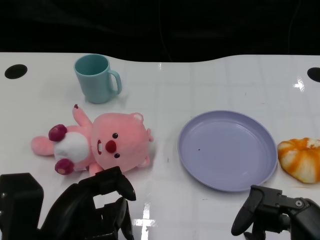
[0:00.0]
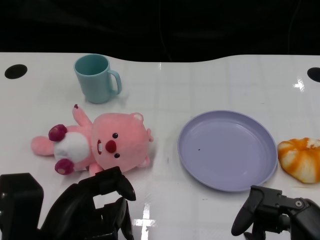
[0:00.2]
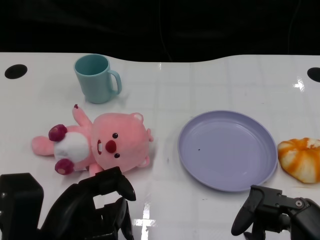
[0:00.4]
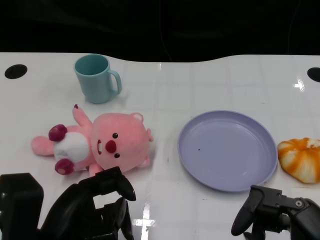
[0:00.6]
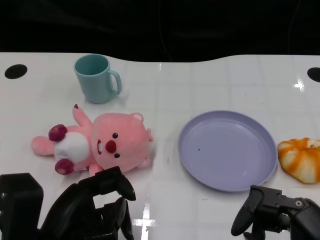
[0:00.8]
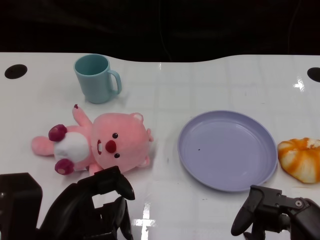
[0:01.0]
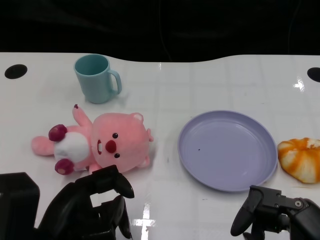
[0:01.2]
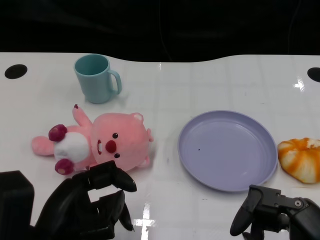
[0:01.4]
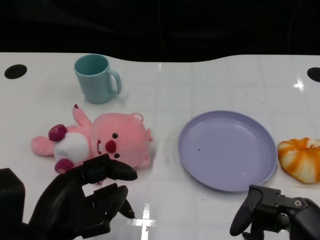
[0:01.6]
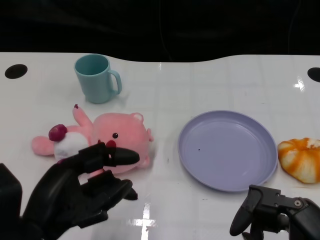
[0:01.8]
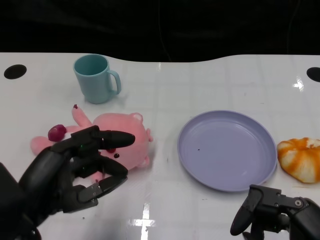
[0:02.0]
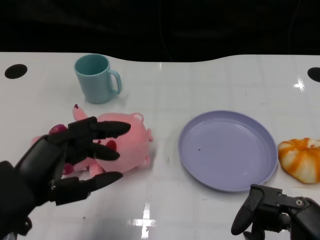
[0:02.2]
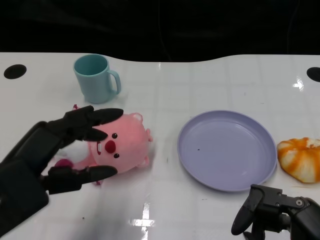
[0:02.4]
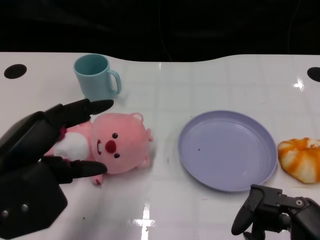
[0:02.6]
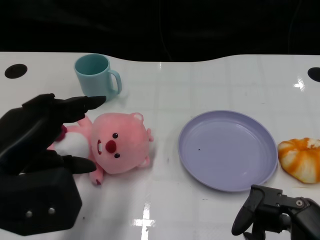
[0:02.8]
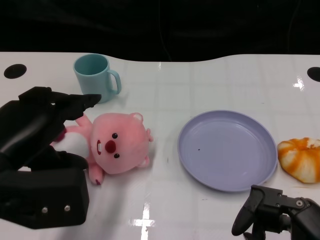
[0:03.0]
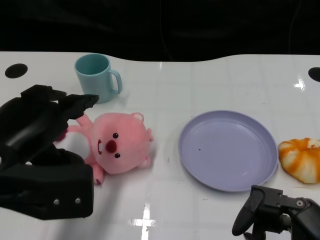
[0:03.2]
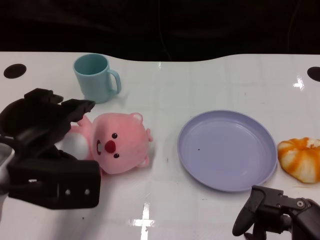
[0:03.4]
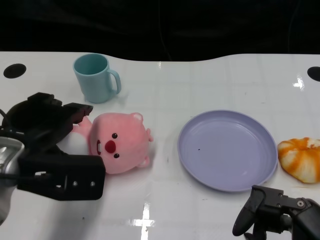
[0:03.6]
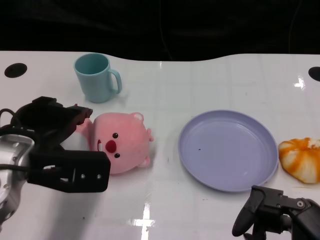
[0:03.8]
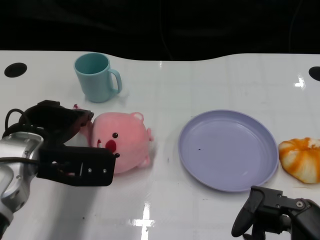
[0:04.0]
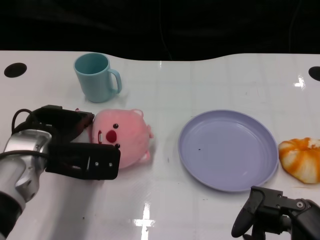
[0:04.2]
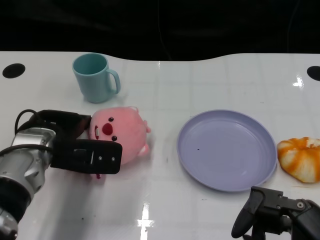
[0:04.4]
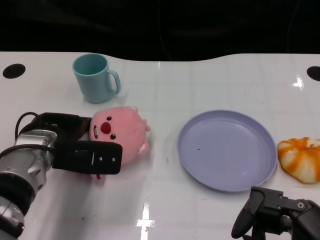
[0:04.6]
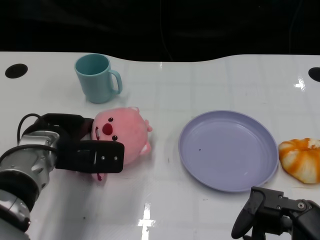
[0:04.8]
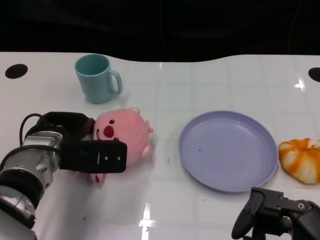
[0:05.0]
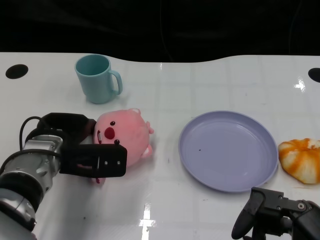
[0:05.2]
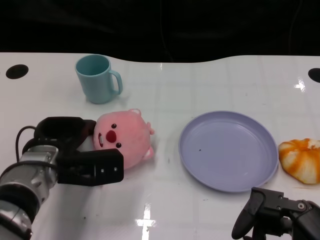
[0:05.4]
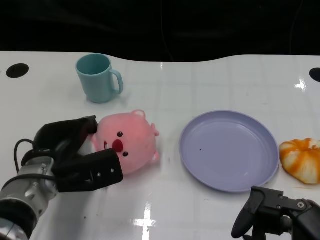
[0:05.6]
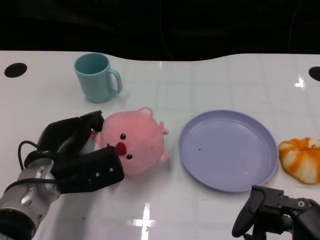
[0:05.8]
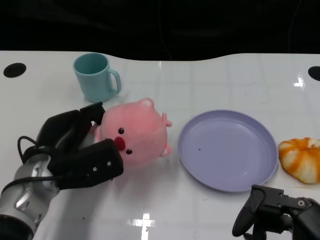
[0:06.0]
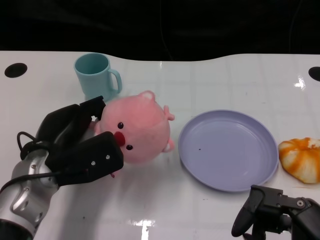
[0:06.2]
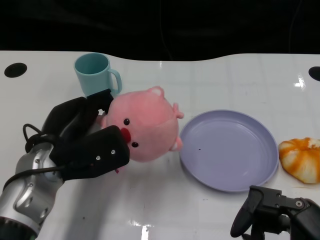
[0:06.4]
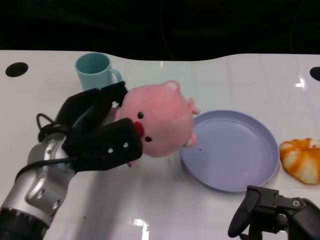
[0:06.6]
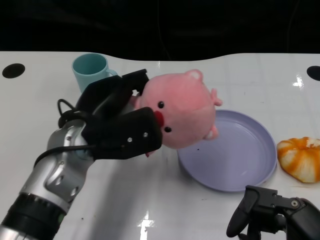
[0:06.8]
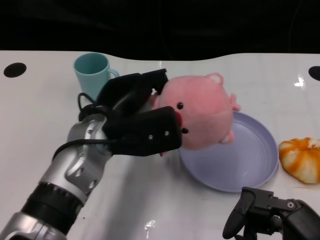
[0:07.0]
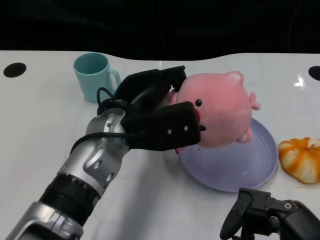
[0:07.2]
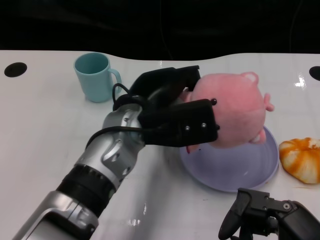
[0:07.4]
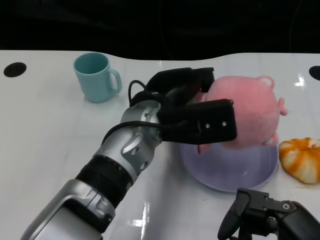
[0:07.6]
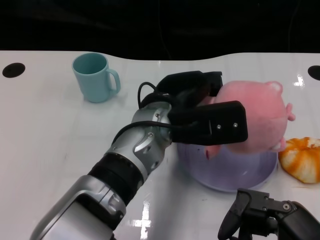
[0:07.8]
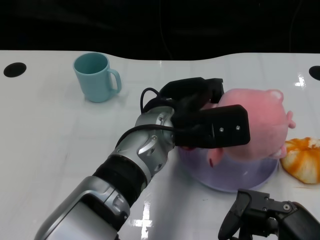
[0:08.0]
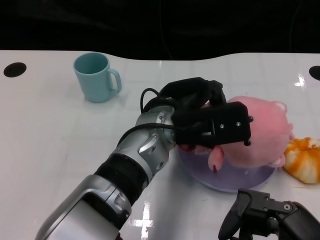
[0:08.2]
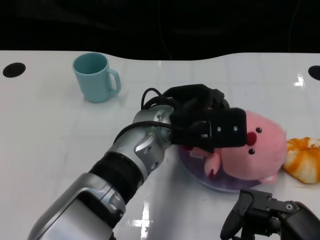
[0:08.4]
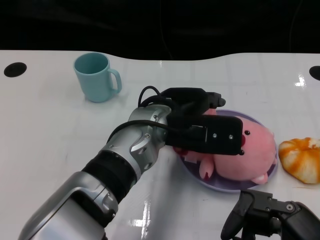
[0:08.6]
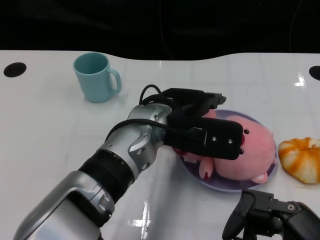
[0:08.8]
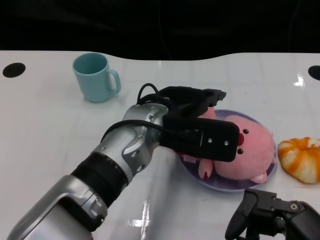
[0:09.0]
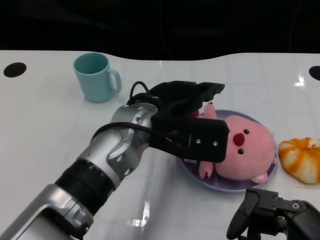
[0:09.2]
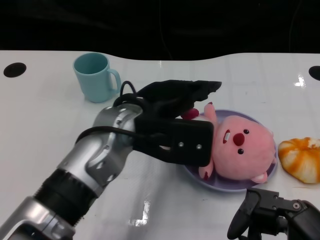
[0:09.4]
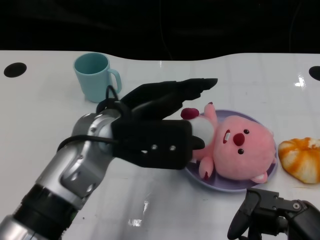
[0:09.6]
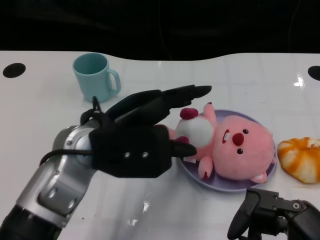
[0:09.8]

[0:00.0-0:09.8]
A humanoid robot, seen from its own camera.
Task of the whole recording: Pick up the doll on one side of the plate and place it into the plate.
Step, 0:01.2 to 0:05.6: Grasp the pink doll with the left gripper.
Step, 0:05.8 to 0:08.8: Place the pink doll into the plate with the left gripper.
0:01.4 to 0:02.8: The left hand travels upward by about 10 cm.
0:02.8 to 0:04.2: The left hand moves forward and downward, approximately 15 cm.
0:04.2 to 0:05.6: The left hand moves downward, approximately 5 cm.
0:05.6 to 0:07.0: The left hand is displaced upward and to the right by some 10 cm.
0:07.0 to 0:08.4: The left hand heads to the right, covering approximately 10 cm.
0:08.4 to 0:09.8: The left hand is displaced to the left by roughly 10 cm.

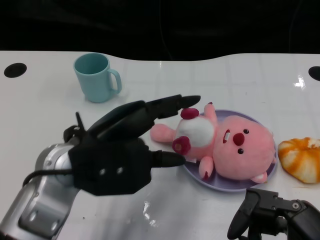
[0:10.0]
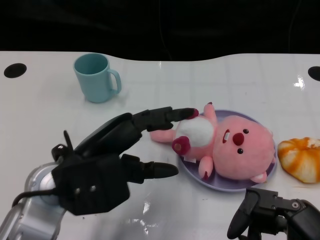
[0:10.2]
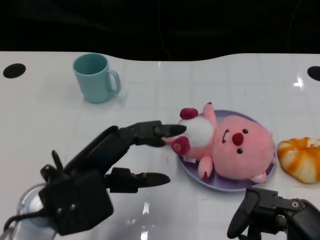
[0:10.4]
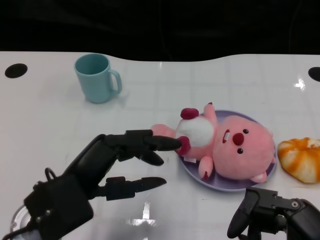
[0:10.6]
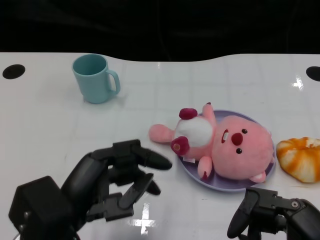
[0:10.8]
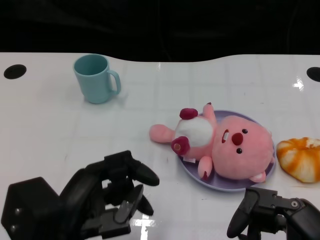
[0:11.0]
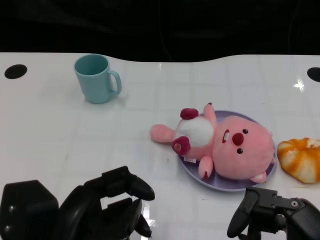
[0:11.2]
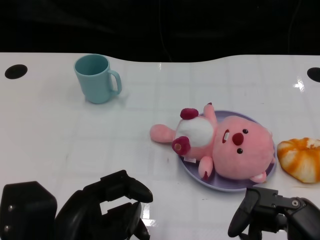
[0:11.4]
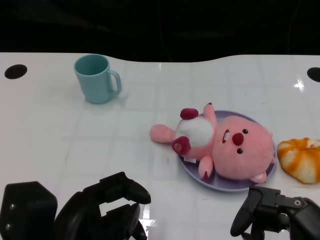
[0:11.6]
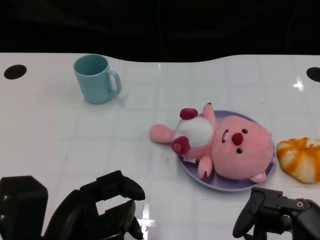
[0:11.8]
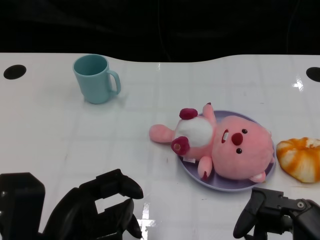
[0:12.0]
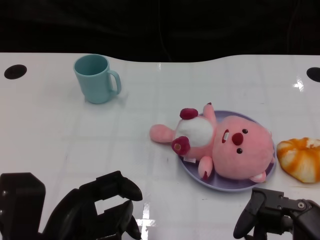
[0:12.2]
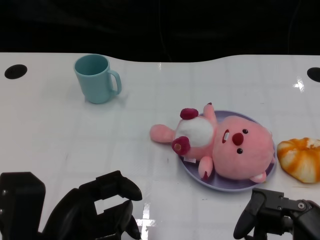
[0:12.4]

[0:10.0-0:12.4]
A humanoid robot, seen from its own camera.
Task of the whole recording: Pick up the doll on one side of the plate and place it into the plate.
0:10.0 to 0:11.2: The left hand travels backward by some 10 cm.
0:11.2 to 0:12.4: There are only small adjustments of the hands.

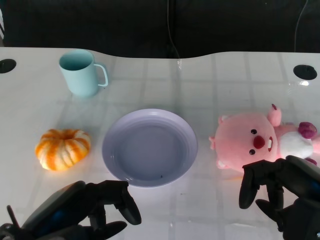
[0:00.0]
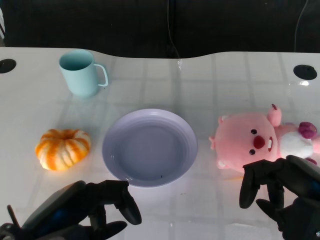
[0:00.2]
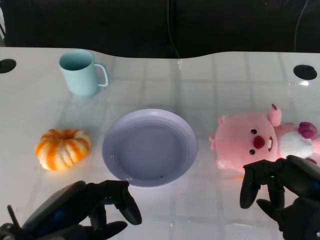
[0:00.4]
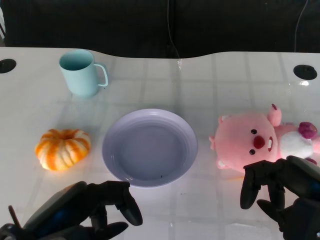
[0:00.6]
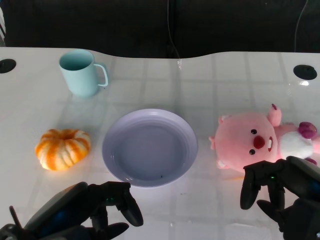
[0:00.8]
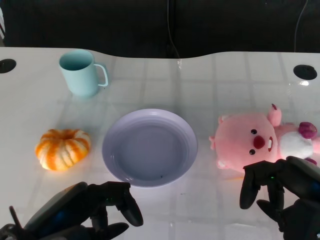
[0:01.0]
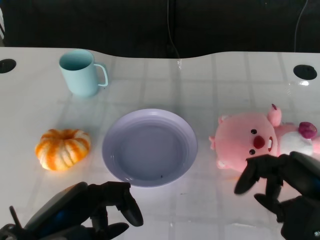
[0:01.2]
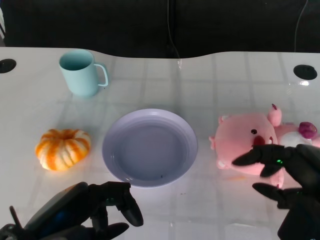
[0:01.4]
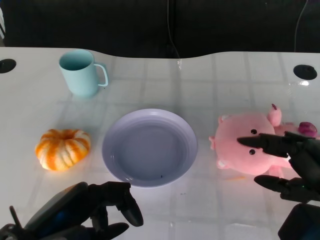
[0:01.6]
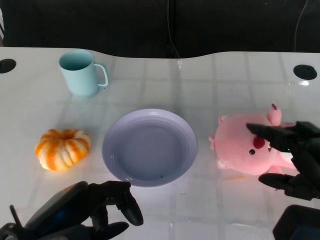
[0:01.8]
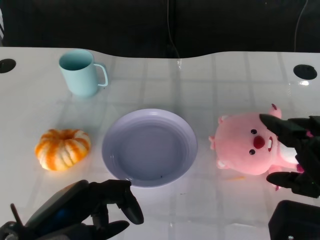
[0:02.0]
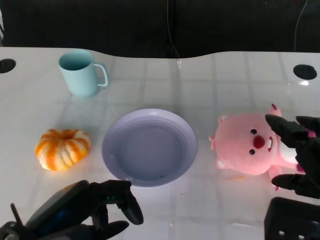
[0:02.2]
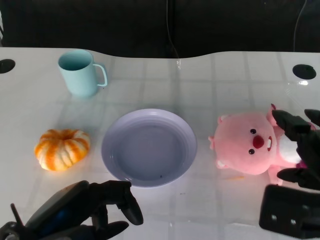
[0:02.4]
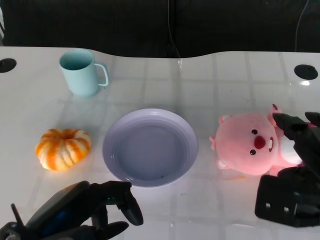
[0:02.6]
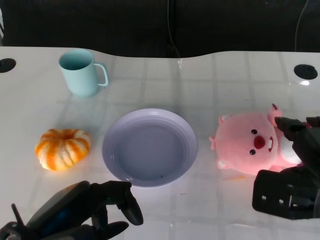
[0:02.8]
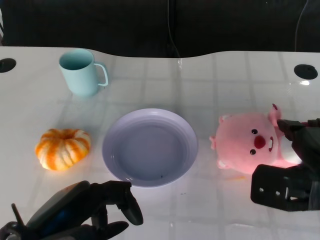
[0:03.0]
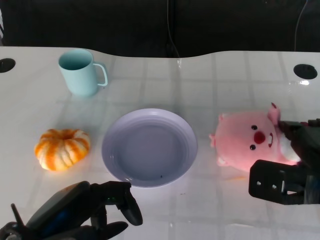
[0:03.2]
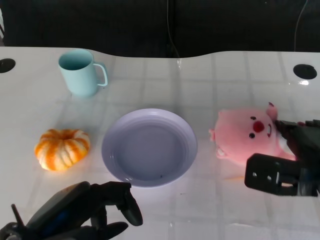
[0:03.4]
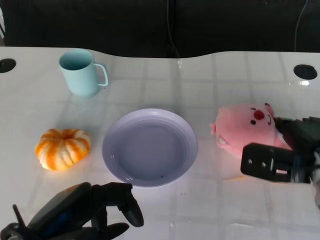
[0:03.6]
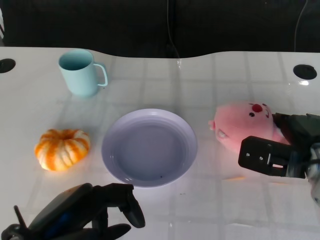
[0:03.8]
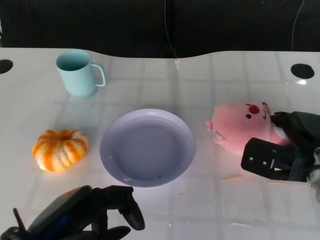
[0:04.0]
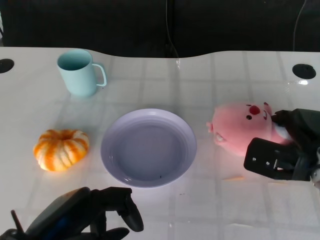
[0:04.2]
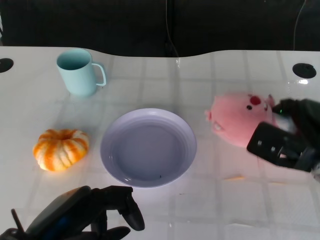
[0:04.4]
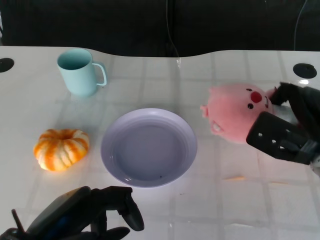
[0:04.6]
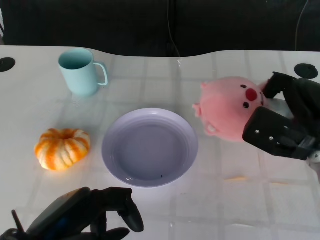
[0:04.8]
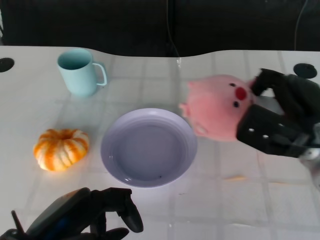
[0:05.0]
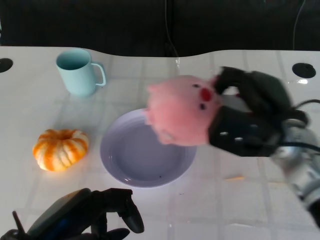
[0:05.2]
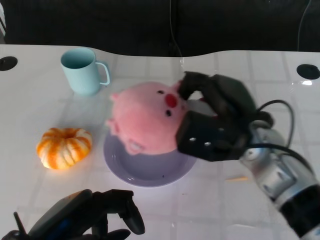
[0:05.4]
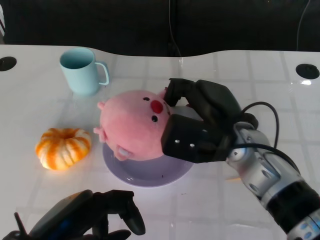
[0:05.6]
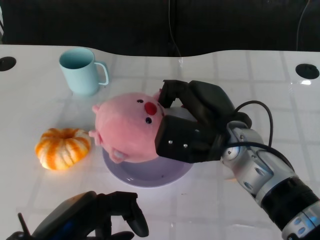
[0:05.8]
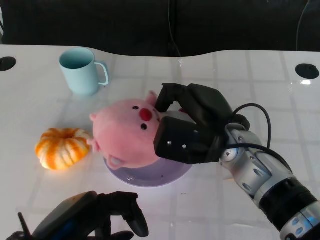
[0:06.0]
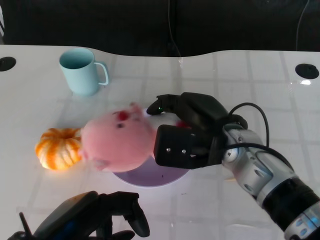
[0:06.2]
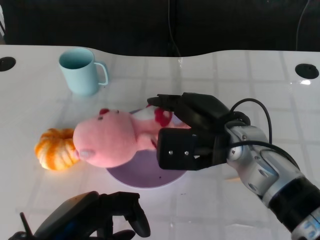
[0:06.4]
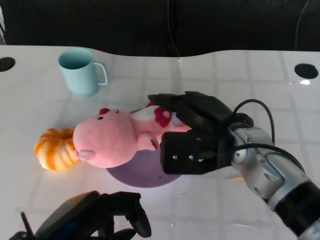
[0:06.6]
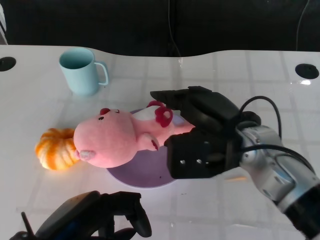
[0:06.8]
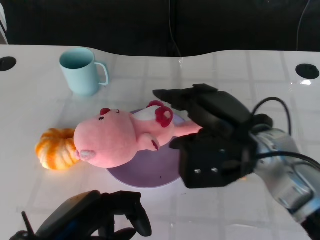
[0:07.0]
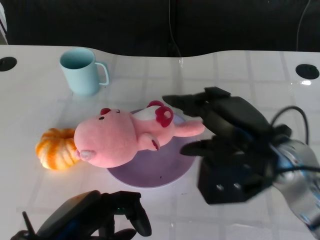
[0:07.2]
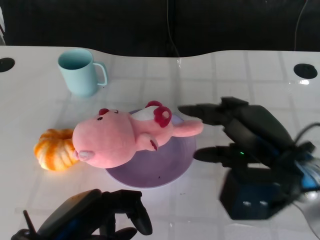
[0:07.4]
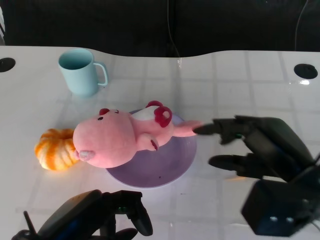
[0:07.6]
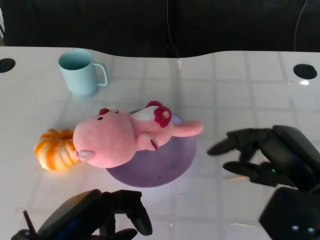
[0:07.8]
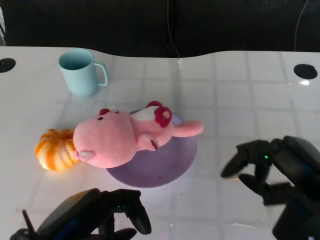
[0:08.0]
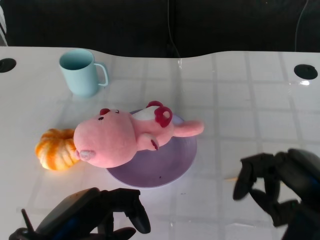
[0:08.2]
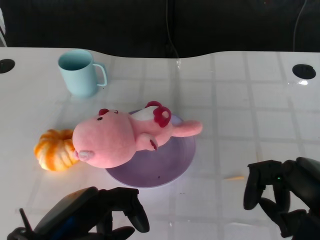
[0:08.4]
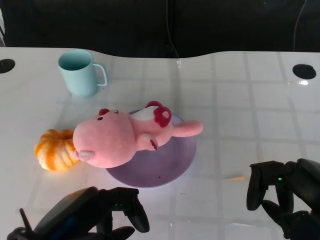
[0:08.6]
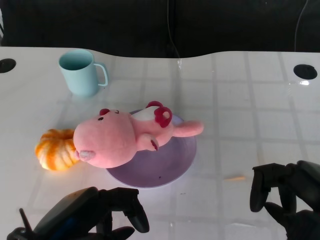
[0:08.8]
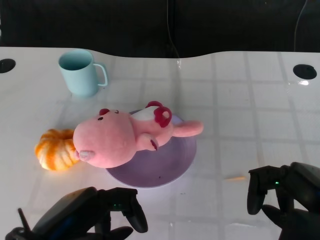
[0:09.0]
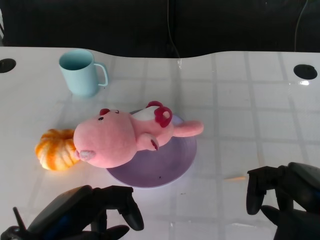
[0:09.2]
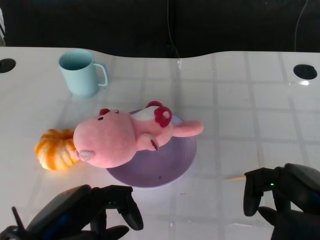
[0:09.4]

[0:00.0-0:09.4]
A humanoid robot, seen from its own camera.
Task of the whole recording: Pick up the doll on the other side of the plate and place it into the plate.
Step, 0:01.0 to 0:05.0: Grasp the pink doll with the right gripper.
Step, 0:05.2 to 0:07.4: Place the pink doll into the plate with the right gripper.
0:01.6 to 0:03.2: The right hand travels forward by about 5 cm.
0:03.2 to 0:04.8: The right hand travels forward by some 5 cm.
0:04.8 to 0:06.2: The right hand heads to the left, covering about 15 cm.
0:06.2 to 0:07.8: The right hand travels to the right and backward by about 15 cm.
